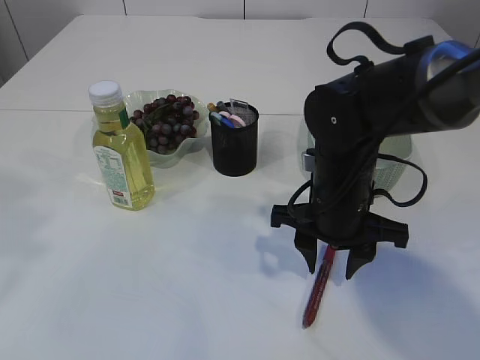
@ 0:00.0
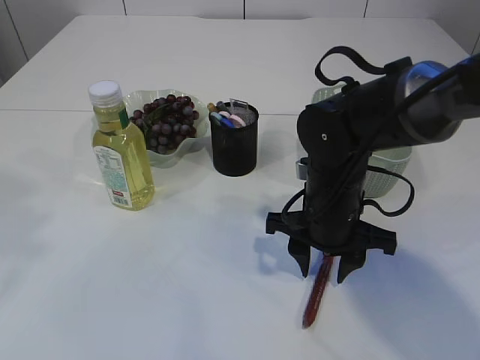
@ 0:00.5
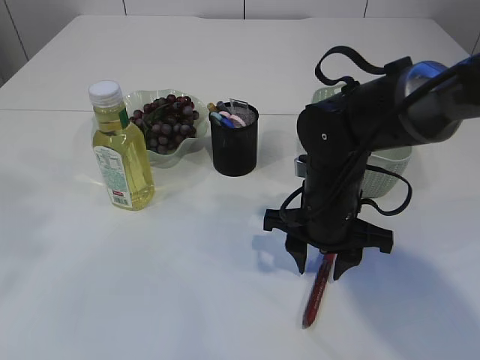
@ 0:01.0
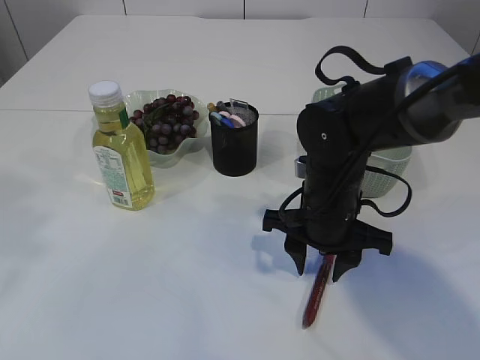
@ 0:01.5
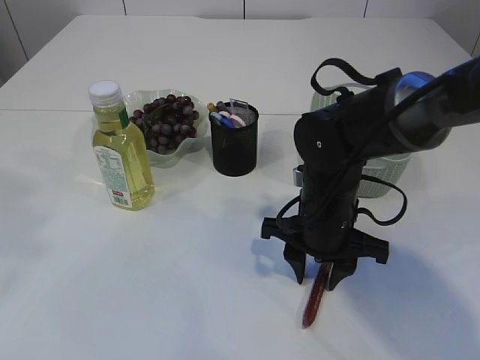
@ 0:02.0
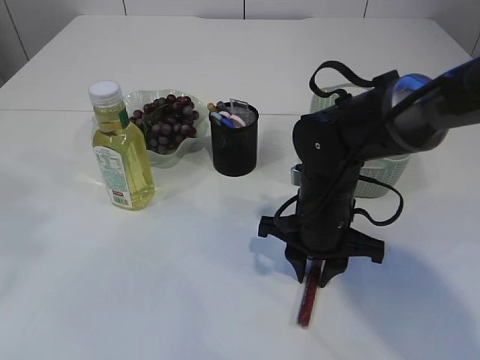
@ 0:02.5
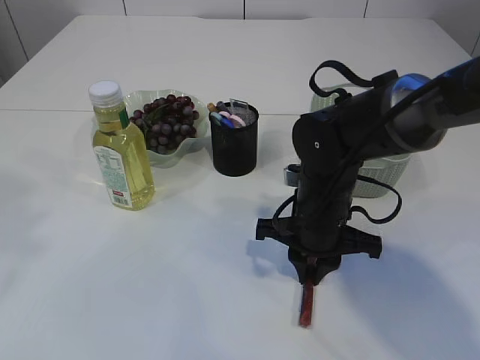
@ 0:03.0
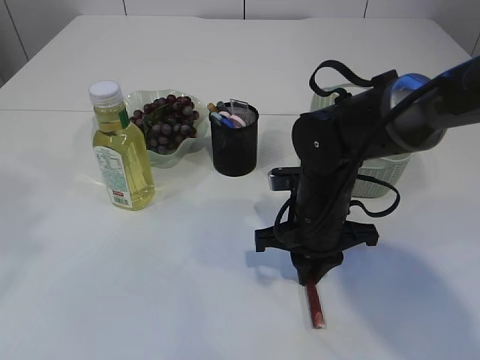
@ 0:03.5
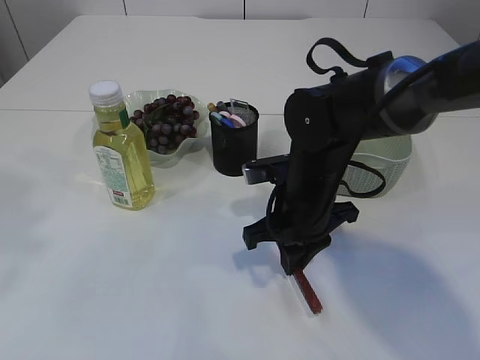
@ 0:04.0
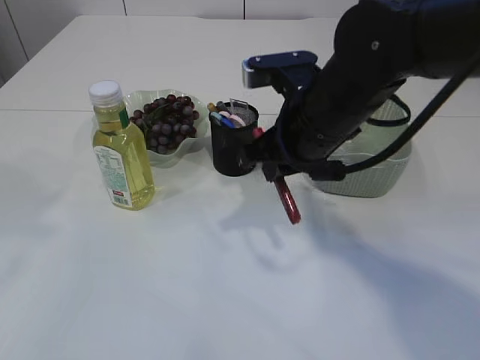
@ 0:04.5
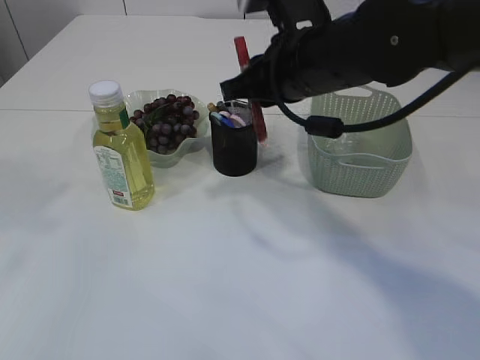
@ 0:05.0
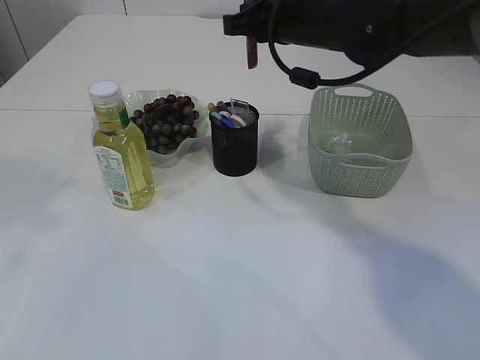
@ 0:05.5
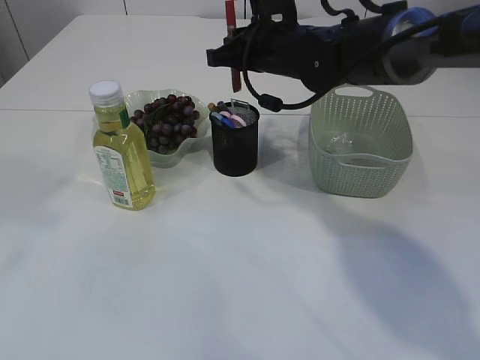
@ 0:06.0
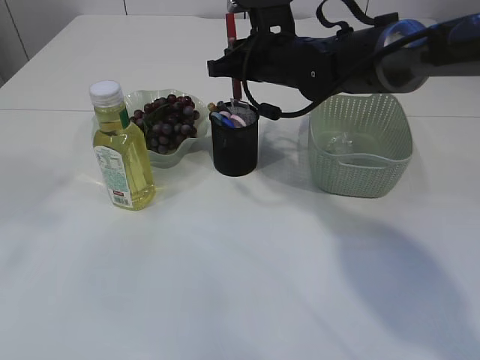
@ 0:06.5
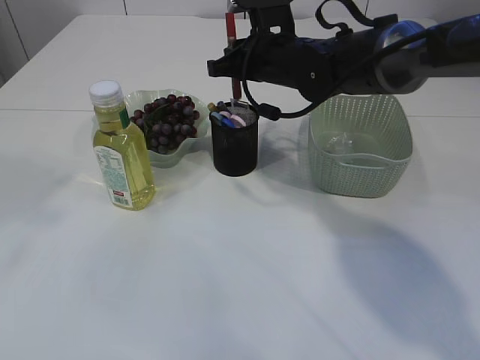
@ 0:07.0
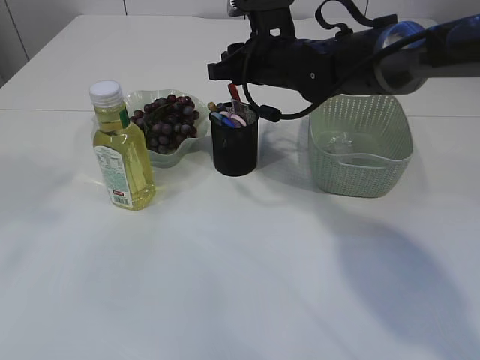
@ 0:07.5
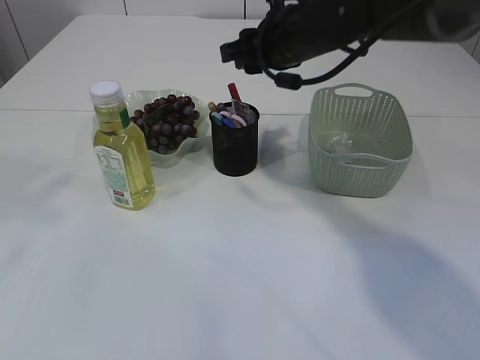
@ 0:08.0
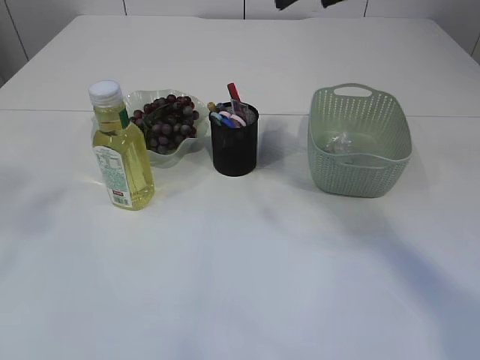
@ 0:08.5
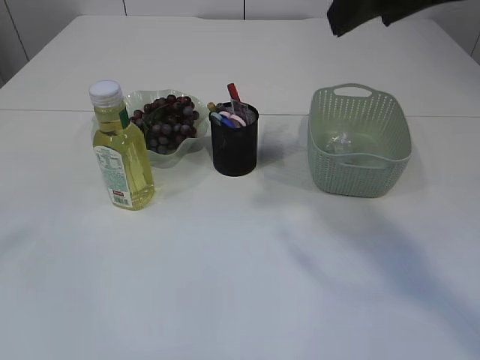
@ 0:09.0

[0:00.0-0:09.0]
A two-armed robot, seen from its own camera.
Step, 0:00.0 to 0:04.0: pick up the red glue.
Step, 0:04.5 to 0:08.0: place the red glue into the pen holder.
0:00.0 to 0:02.0: The grippers move only a little.
0:02.0 to 0:04.5: The right gripper shifts some 10 cm upward, and closes its fingers.
0:04.5 to 0:07.0: The right gripper is displaced forward by roughly 15 cm.
0:07.0 to 0:09.0: The left gripper travels backward by some 10 cm, and opens, while the right gripper travels backward and upward by approximately 25 cm, and opens its fingers.

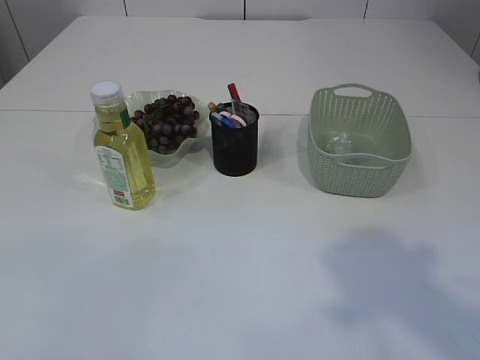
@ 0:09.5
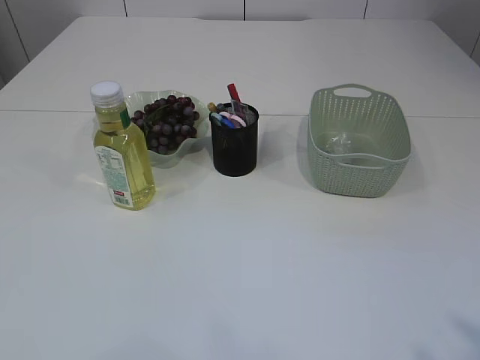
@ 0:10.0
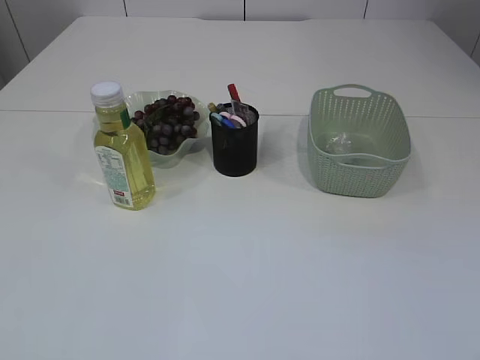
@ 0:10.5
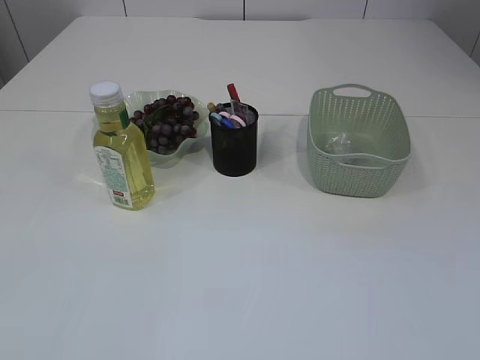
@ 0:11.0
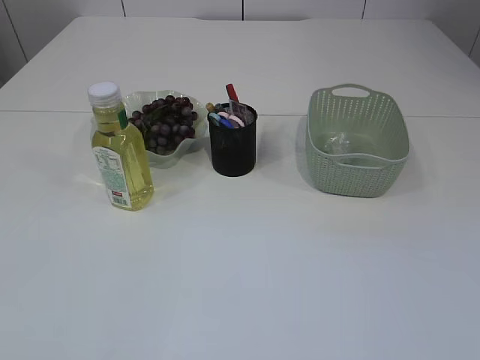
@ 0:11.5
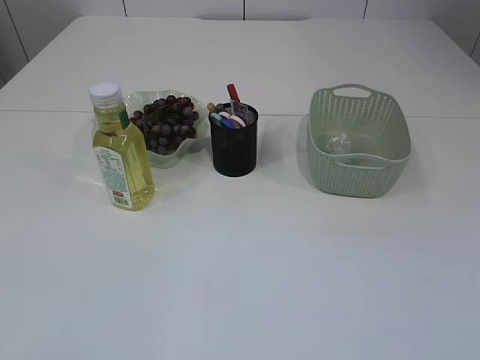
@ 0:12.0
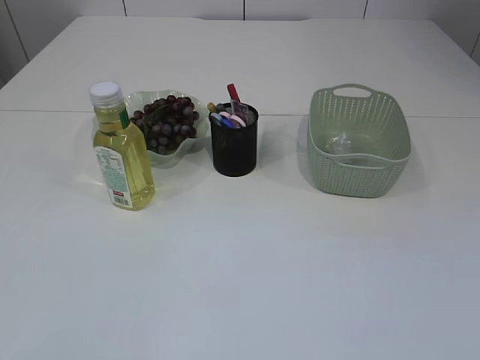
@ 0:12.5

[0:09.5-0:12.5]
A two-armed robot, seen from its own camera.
0:09.5 to 0:11.0: The right gripper goes about 20 cm backward, downward and to the right.
